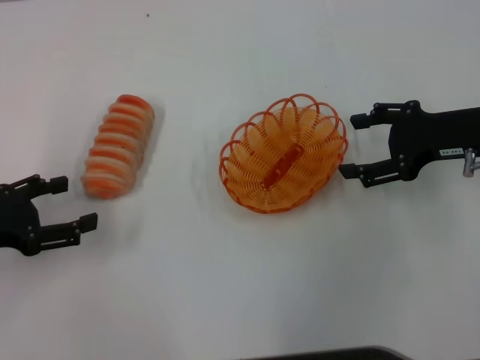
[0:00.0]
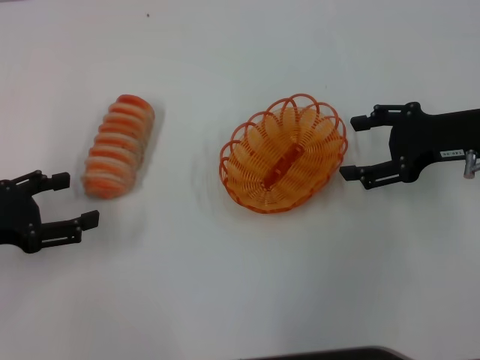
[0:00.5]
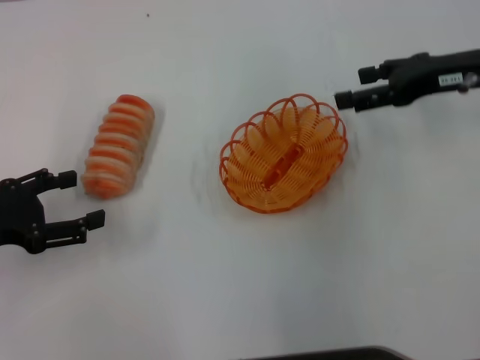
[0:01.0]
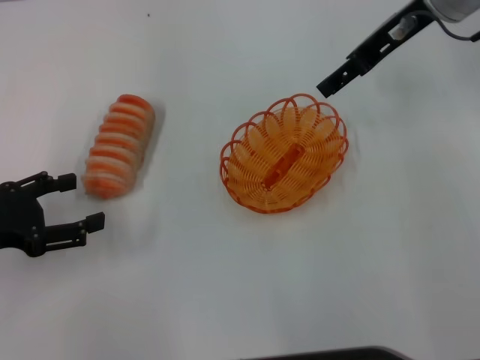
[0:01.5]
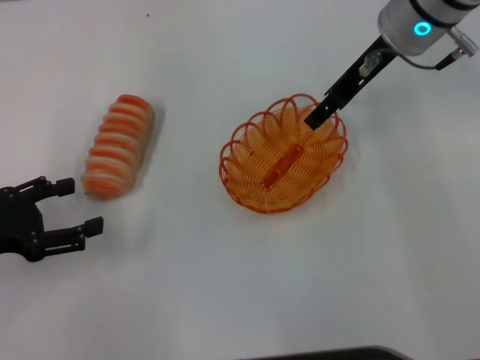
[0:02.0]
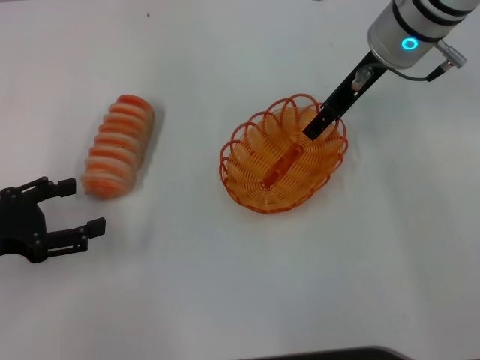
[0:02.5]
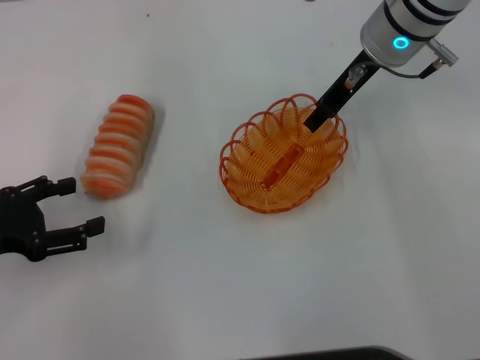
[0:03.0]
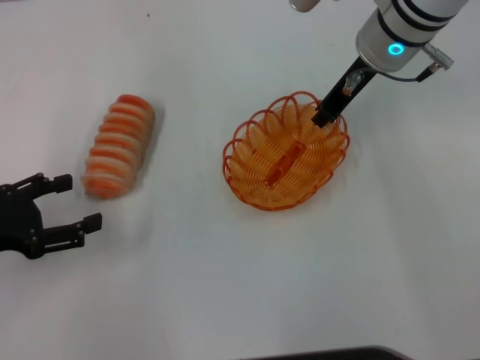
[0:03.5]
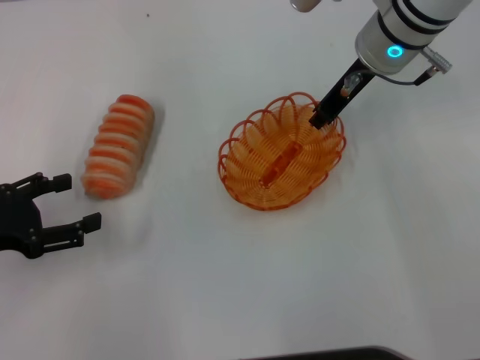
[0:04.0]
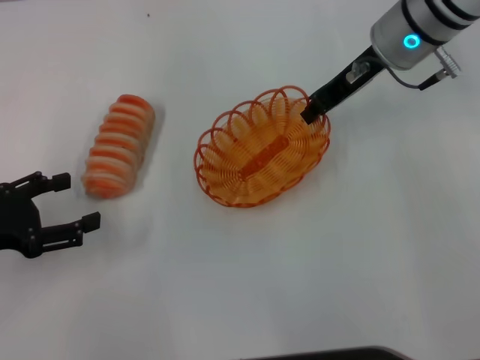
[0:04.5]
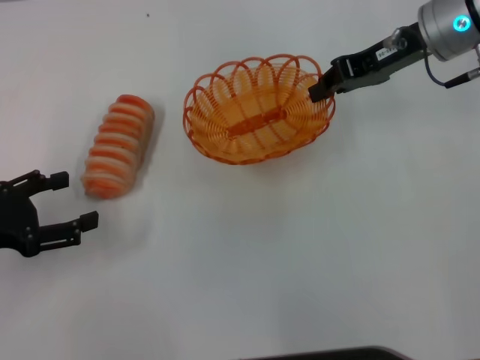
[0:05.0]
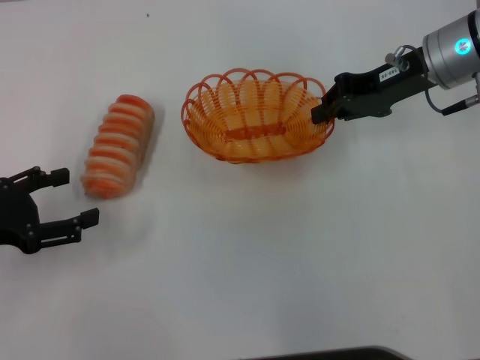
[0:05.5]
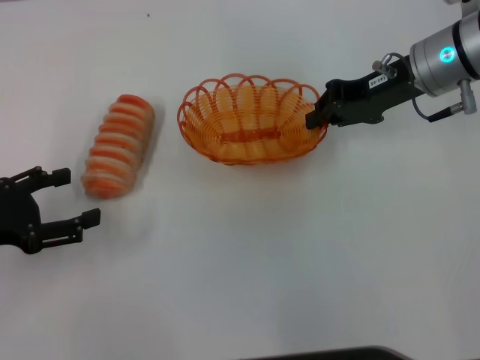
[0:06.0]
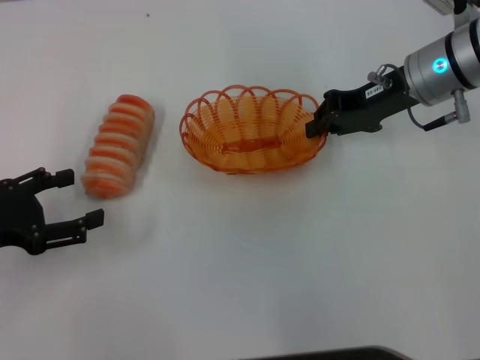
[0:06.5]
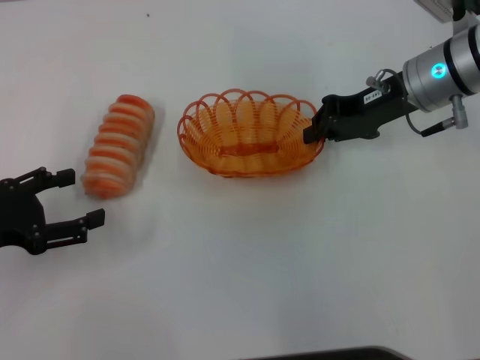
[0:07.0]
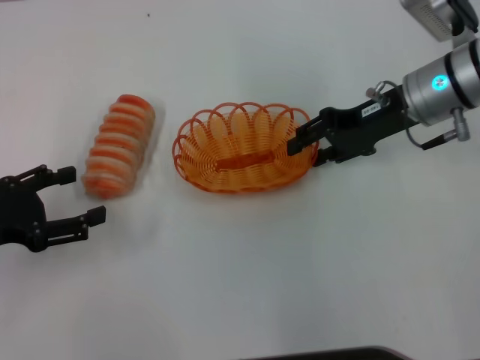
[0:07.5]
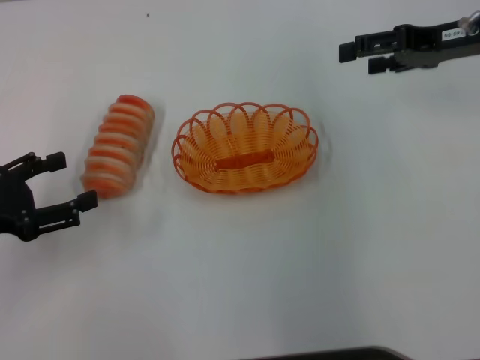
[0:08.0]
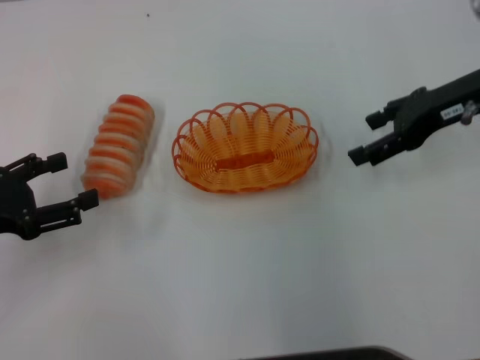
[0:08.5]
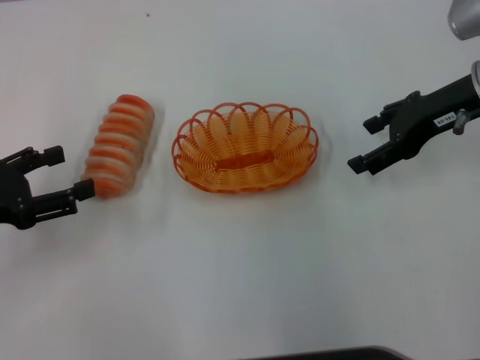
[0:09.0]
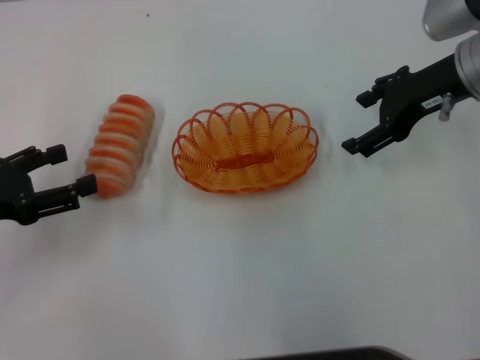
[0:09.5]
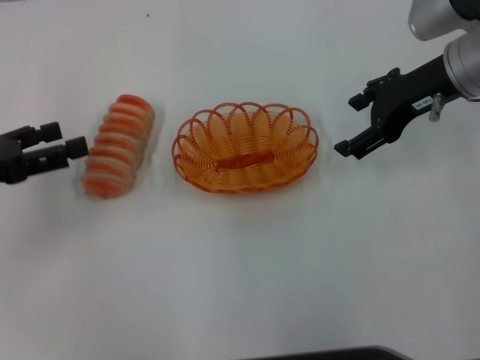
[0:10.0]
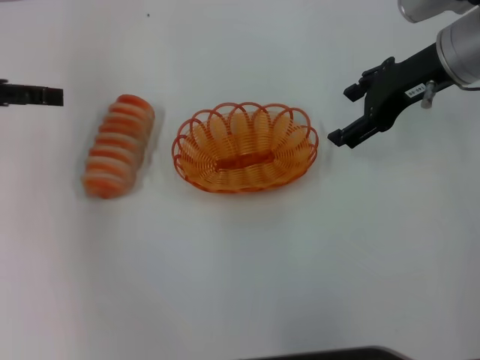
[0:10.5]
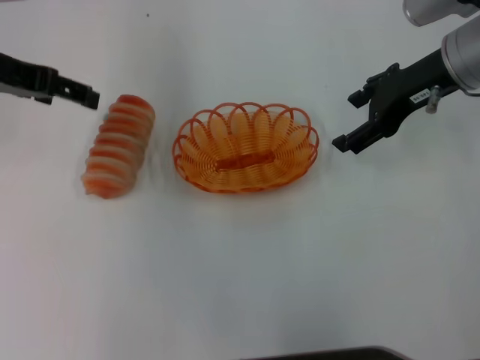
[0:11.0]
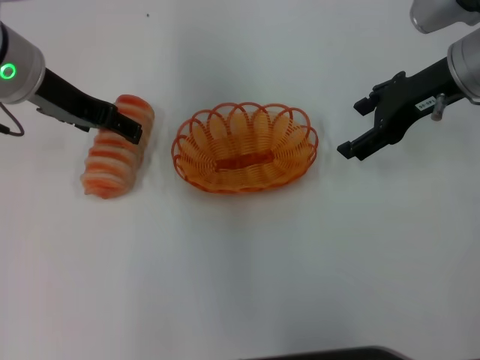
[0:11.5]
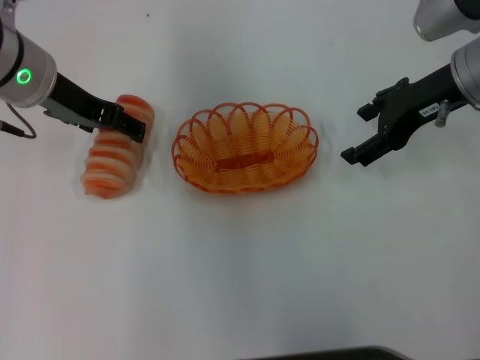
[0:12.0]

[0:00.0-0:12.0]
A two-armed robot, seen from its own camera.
Step, 0:00.0 to 0:04.5: Pick up the basket with the right gripper.
Step, 0:05.0 to 0:08.0: Place the basket in the center of view with the right gripper.
0:00.0 to 0:02.0: The right gripper travels to the left, forward and upward by roughly 15 cm.
0:02.0 to 0:04.0: The right gripper closes up.
0:04.0 to 0:06.0: The right gripper travels to the right by approximately 5 cm.
0:06.0 to 0:08.0: The right gripper travels to the right by some 5 cm, and opens up.
0:08.0 to 0:10.0: The right gripper shifts some 5 cm to the left.
0:10.0 to 0:12.0: The left gripper goes approximately 20 cm to the right, forward and upward.

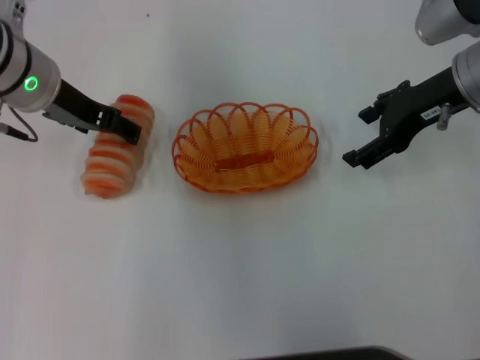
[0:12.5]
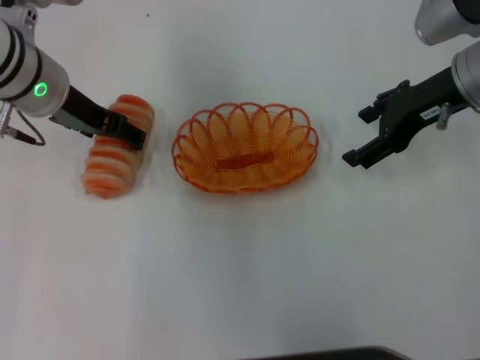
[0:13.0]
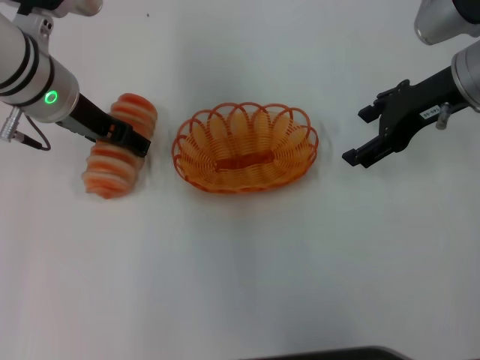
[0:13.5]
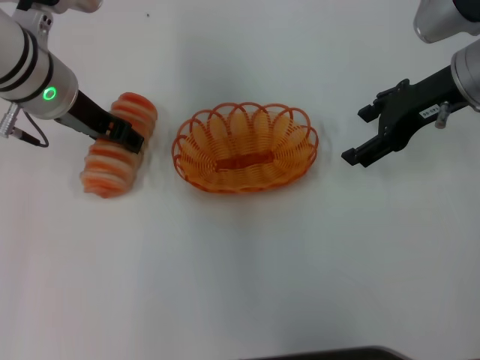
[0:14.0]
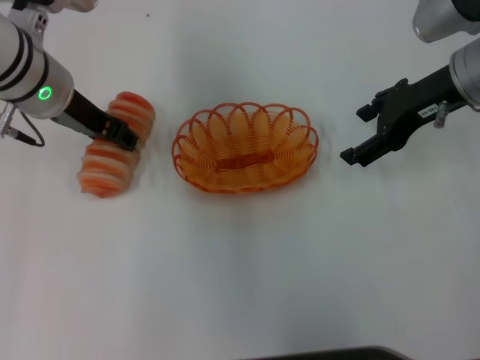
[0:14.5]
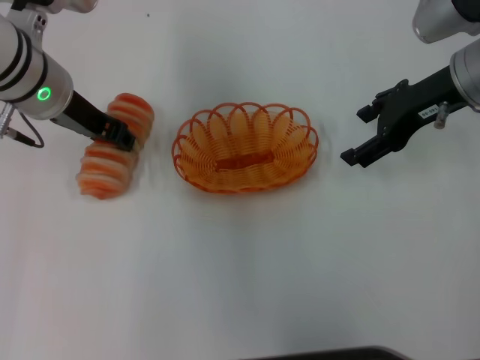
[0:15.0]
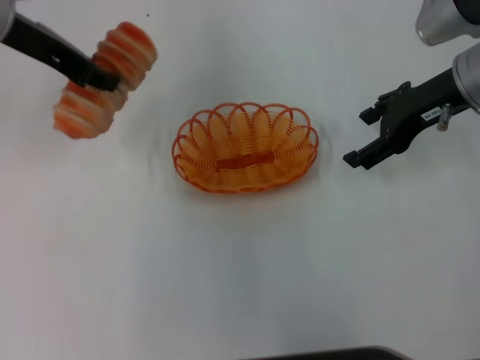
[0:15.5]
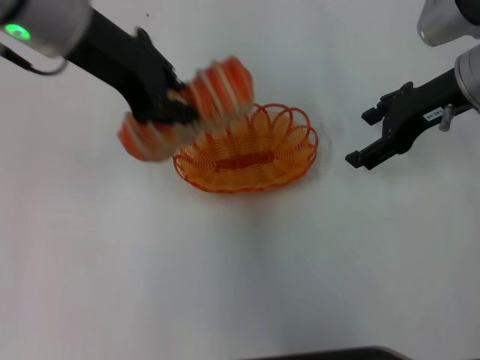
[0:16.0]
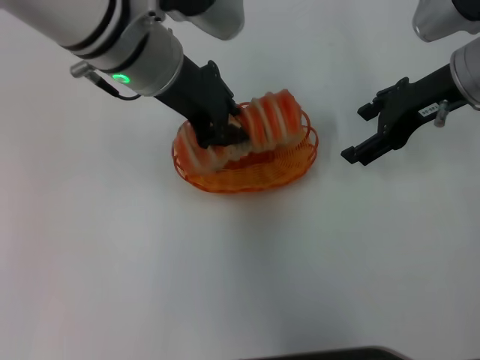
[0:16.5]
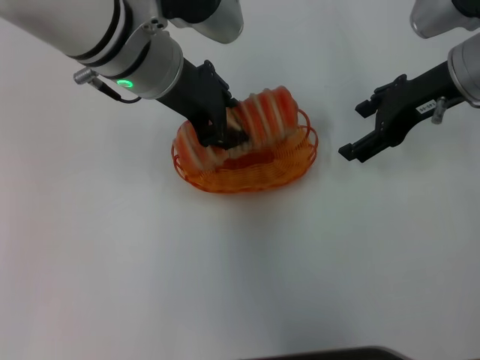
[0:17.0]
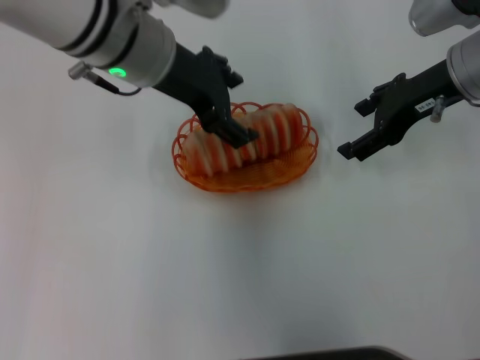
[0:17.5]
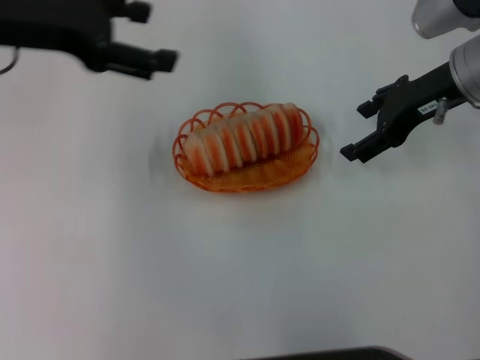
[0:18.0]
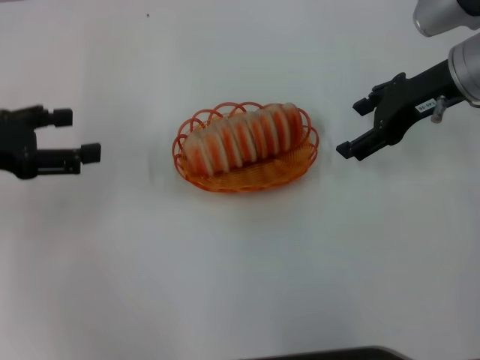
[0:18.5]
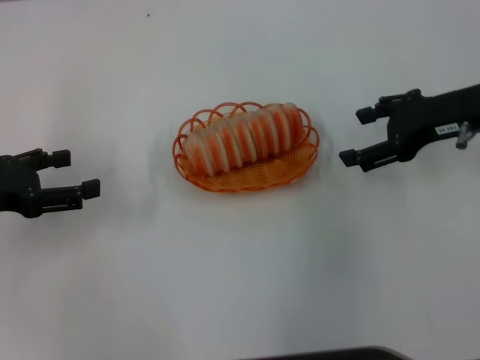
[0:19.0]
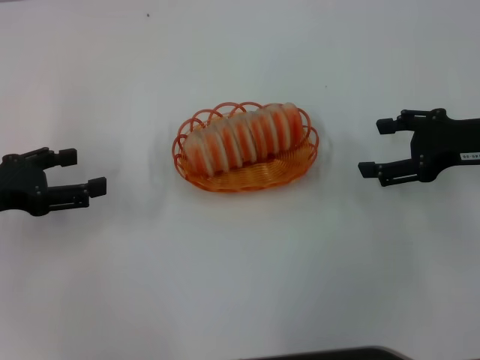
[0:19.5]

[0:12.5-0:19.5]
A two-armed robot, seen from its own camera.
Step, 0:12.5 to 0:15.0: Pick up the long bread with the left gripper.
Step, 0:15.5 to 0:17.5: Place the long bread into the basket with the left gripper.
0:12.5 to 0:14.5: The left gripper closes.
0:14.5 to 0:16.0: The left gripper moves upward, some 10 cm, and closes.
0:16.0 to 0:17.5: The left gripper changes place by about 5 cm, and opens.
0:17.5 to 0:19.5: The left gripper is displaced to the left and downward by some 25 cm. Meanwhile the right gripper travels backward, to the right and downward by some 10 cm.
